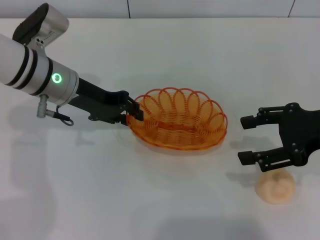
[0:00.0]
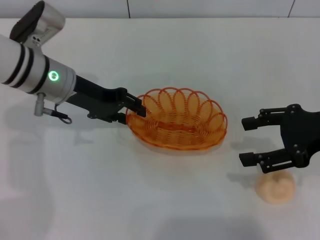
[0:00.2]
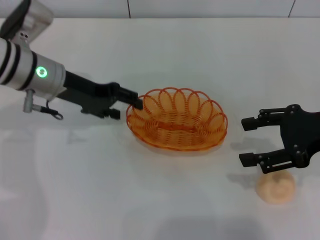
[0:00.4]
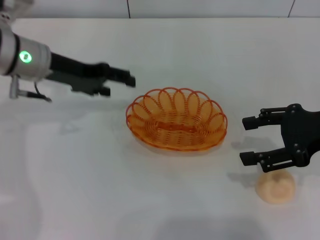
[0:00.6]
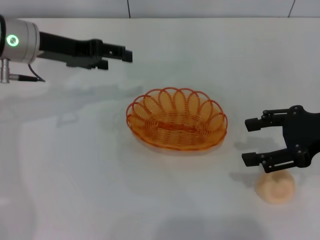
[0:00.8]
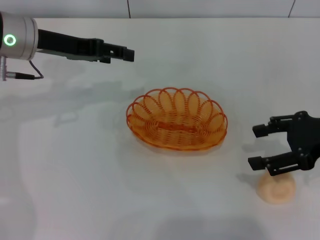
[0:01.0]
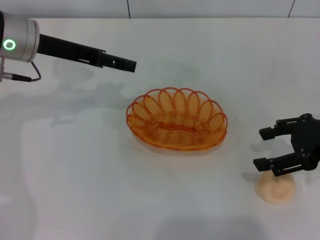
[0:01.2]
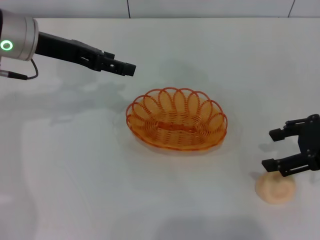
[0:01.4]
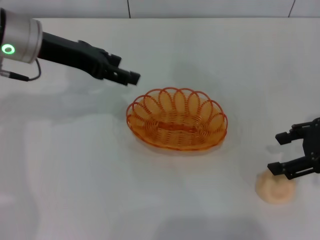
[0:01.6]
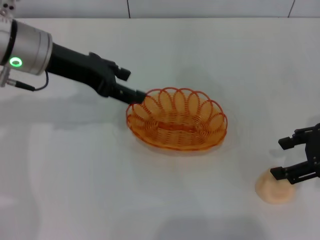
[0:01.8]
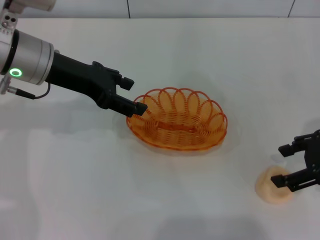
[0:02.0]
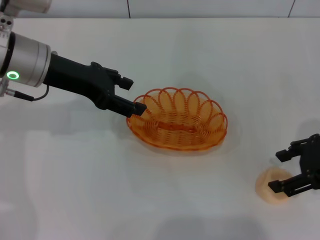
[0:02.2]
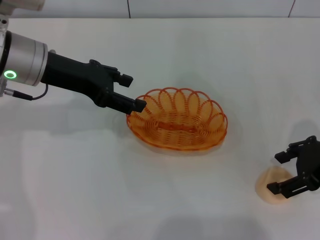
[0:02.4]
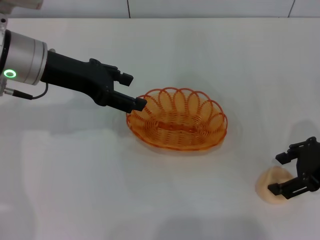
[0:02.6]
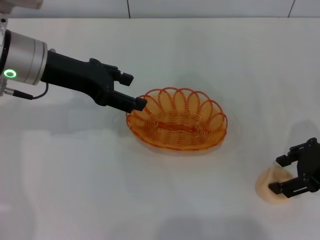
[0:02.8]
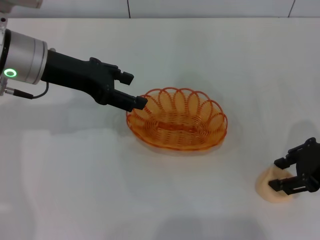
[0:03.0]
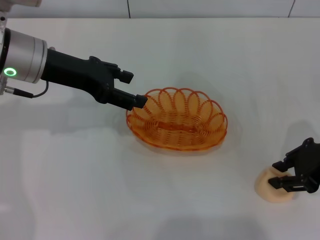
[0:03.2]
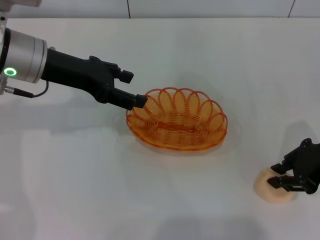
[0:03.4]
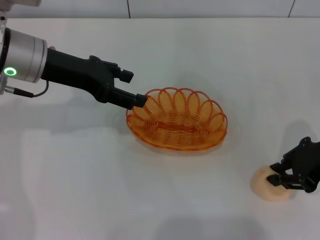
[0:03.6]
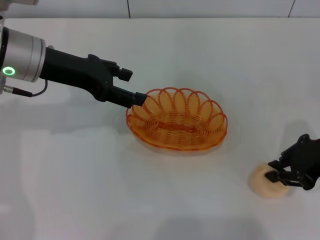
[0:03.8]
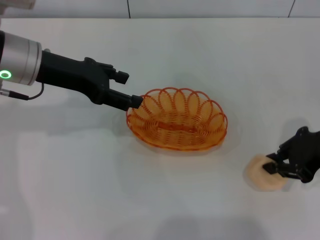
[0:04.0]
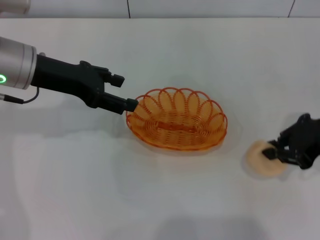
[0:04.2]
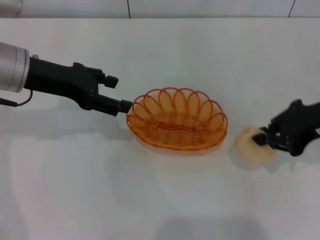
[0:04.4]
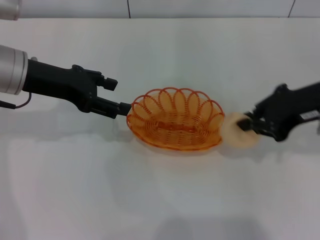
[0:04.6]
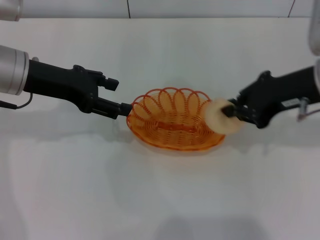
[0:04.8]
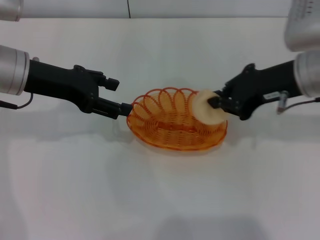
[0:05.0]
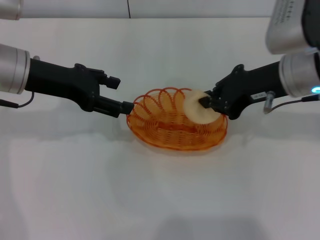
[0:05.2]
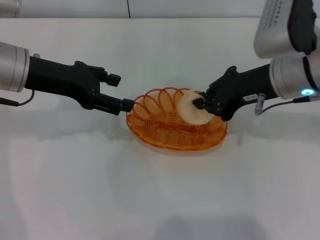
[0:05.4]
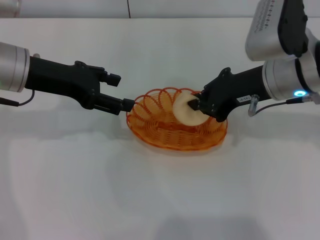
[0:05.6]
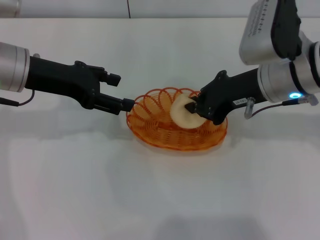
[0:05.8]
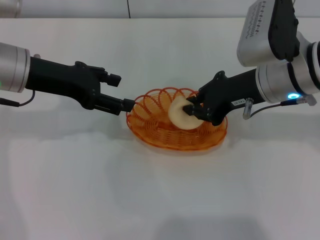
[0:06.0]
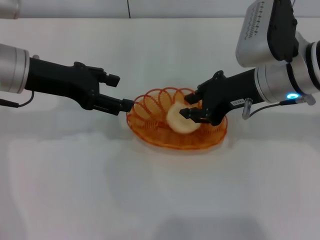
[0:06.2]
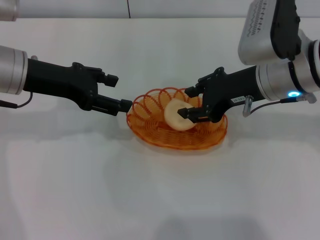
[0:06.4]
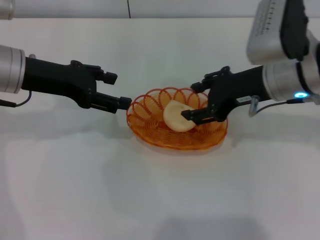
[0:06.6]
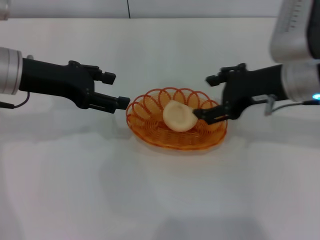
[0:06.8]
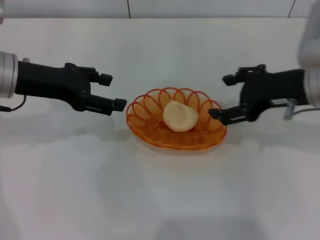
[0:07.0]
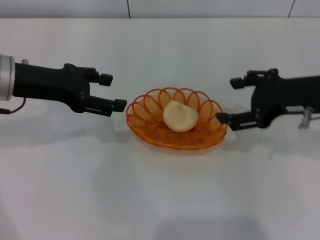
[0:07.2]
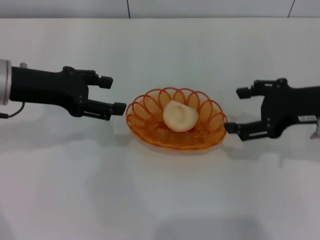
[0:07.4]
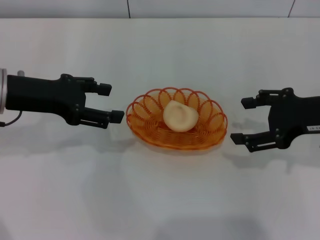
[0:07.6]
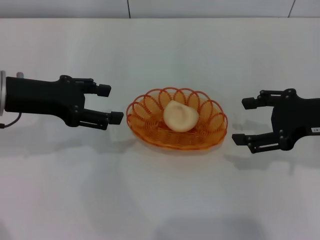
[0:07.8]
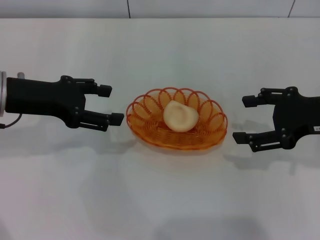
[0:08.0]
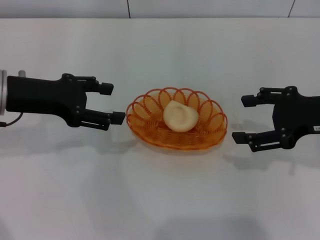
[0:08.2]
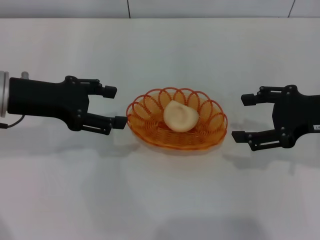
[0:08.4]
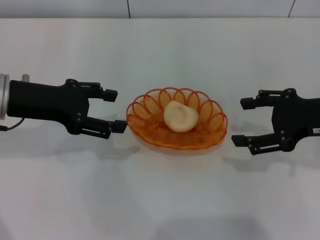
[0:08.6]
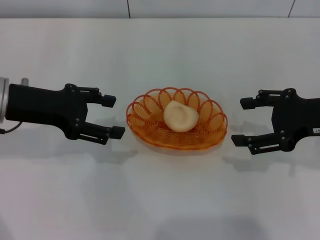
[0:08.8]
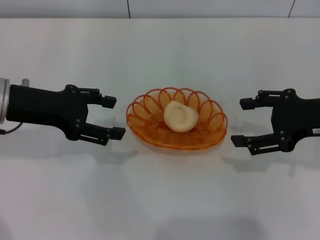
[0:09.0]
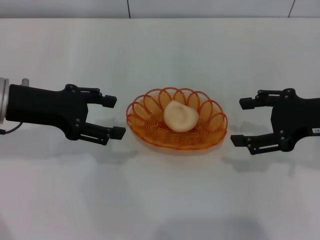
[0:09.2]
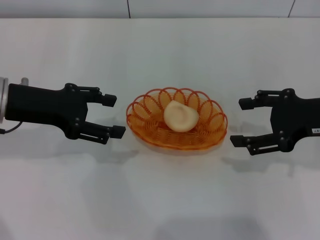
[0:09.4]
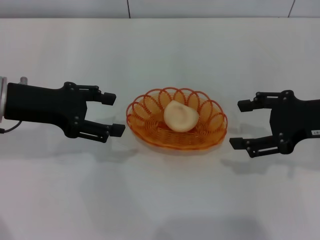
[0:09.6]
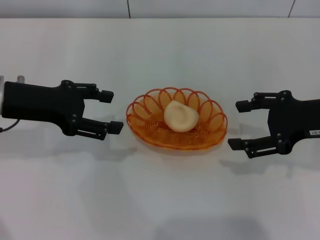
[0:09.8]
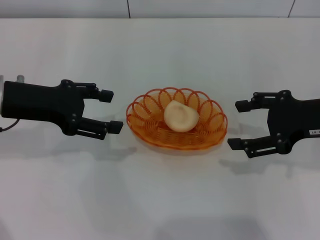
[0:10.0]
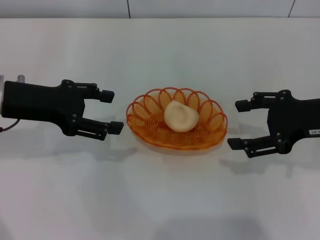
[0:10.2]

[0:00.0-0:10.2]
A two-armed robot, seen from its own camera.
Step, 0:01.0 to 0:04.2: Pick up the egg yolk pastry with the right gripper.
Step, 0:04.4 to 0:07.4: Place the egg yolk pastry into the basket with the right gripper.
0:00.0 to 0:01.4: The left gripper shifts some 5 cm upward, and opens its fingers.
0:01.4 to 0:03.0: The grippers make only small movements.
0:03.0 to 0:04.4: The right gripper changes place by about 5 cm, and closes up.
0:04.4 to 0:05.8: The right gripper travels to the left by roughly 10 cm.
0:05.8 to 0:07.2: The right gripper travels to the right by some 5 cm, and opens its fingers.
0:07.2 to 0:08.8: The grippers make only small movements.
0:08.8 to 0:10.2: Both grippers stay about where they are.
